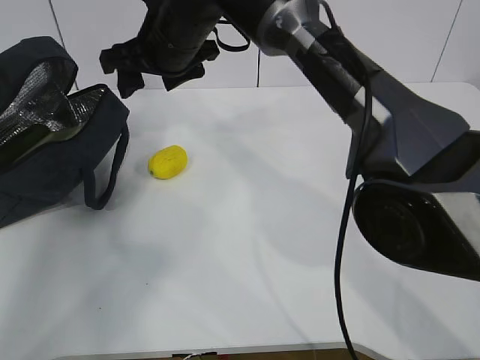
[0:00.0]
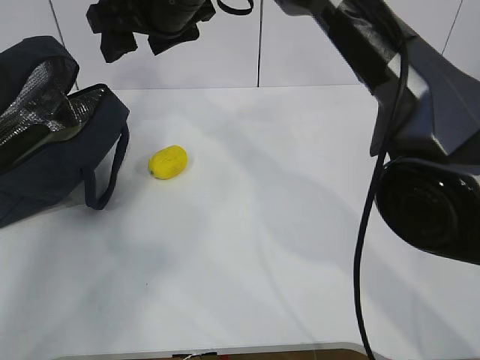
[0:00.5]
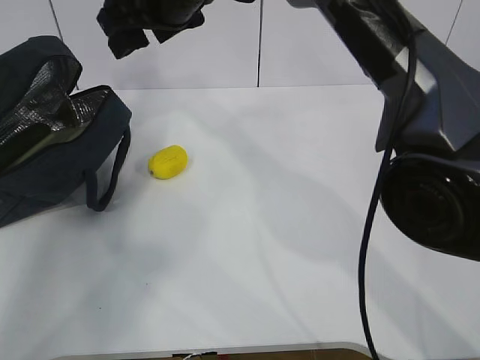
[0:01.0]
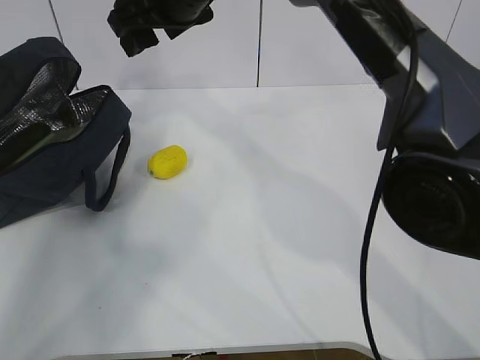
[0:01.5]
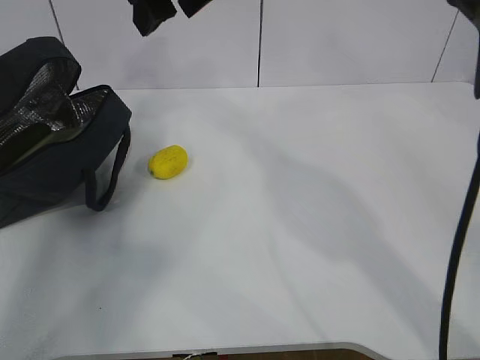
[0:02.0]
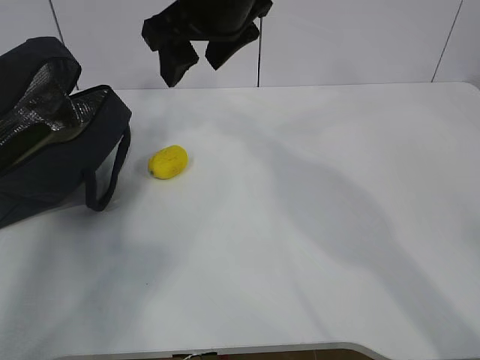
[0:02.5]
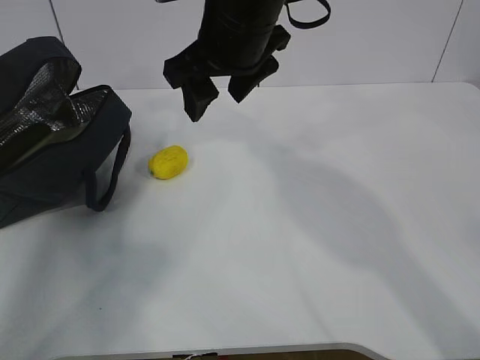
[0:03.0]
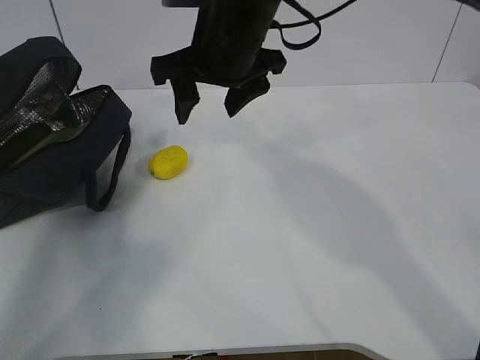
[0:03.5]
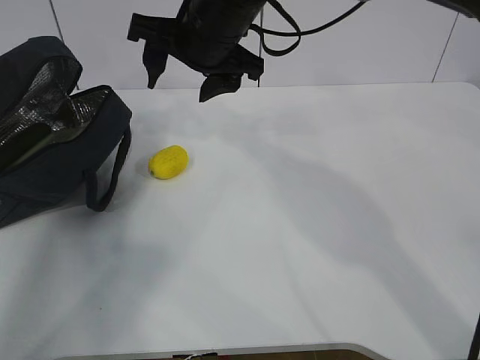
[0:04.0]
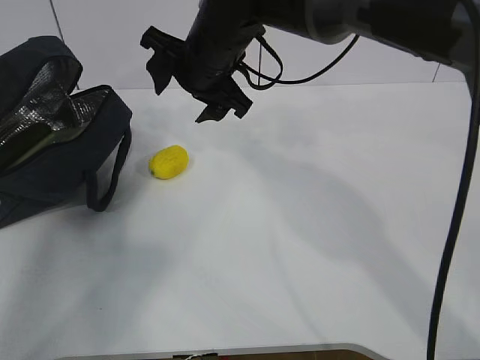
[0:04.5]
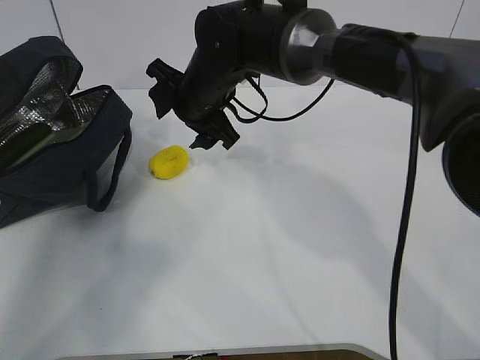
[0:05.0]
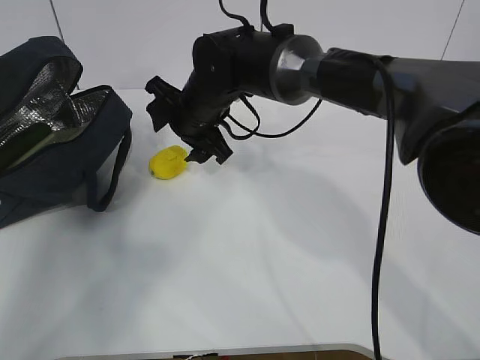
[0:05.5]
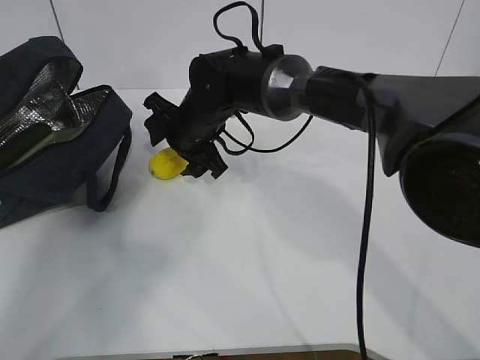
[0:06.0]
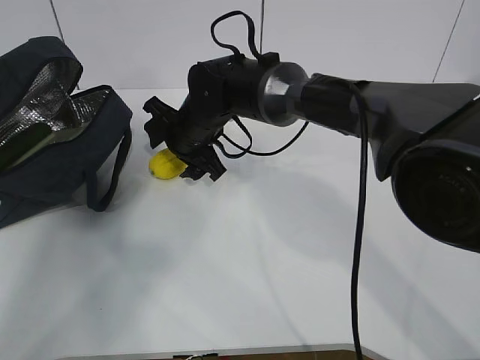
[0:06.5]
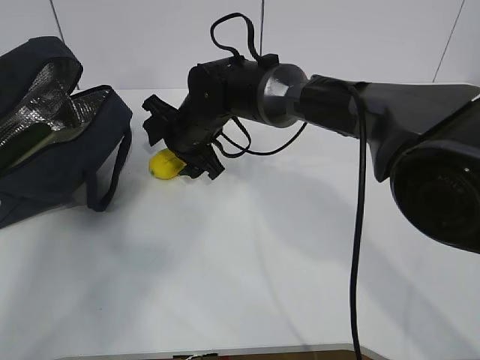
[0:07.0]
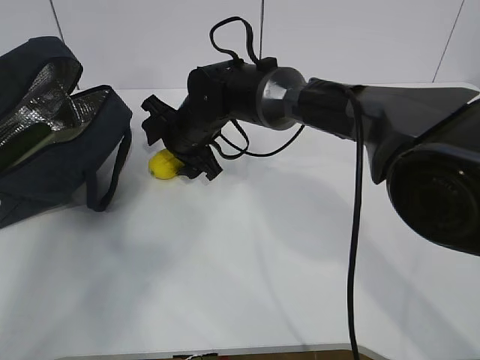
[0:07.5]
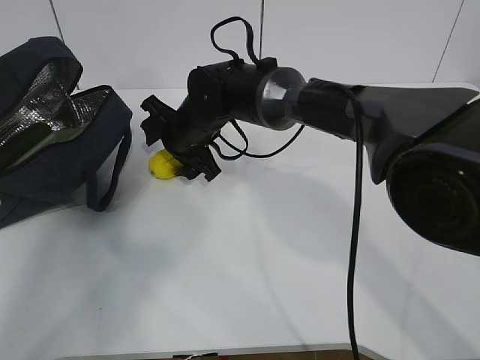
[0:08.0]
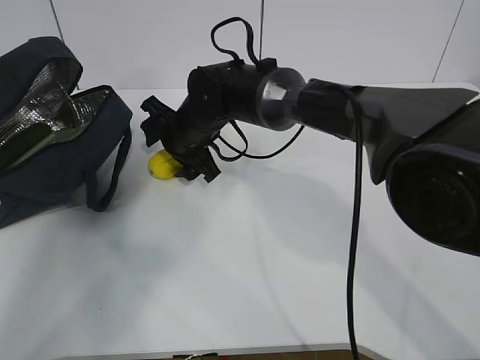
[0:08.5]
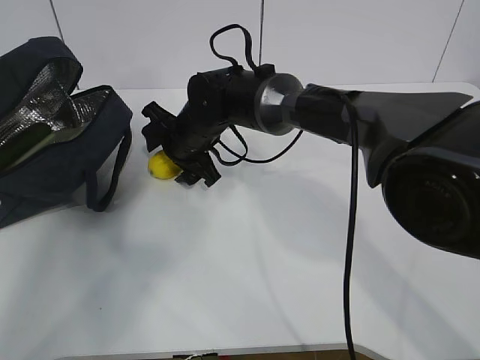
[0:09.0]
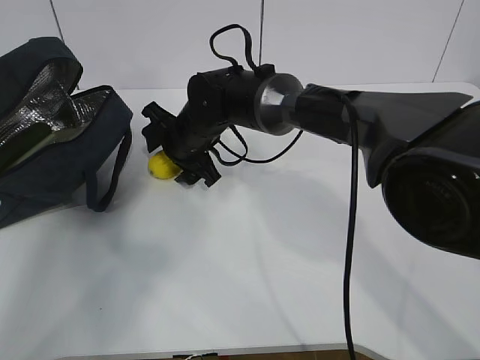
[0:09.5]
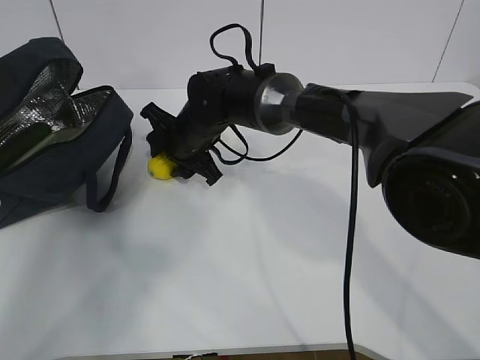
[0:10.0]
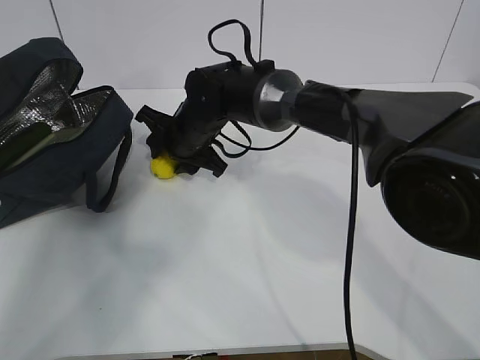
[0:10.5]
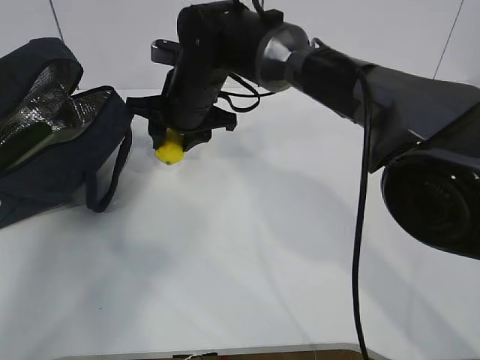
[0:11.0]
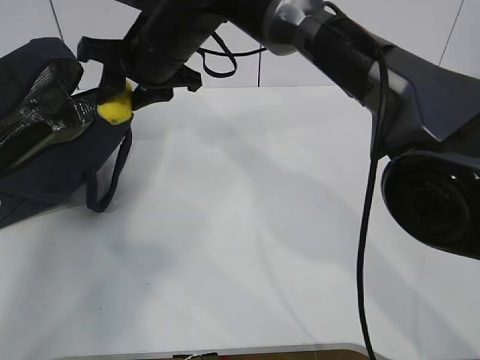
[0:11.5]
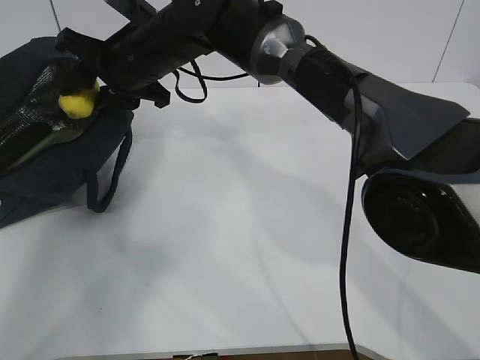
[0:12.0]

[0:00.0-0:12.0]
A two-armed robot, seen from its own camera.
Step, 0:00.0 to 0:03.5: Grab the lemon with your right hand.
Step, 0:07.0 to 0:08.0: Grab the lunch bag with your right hand.
Step, 0:08.5 to 0:11.5: Stand the lunch bag upright with your right hand.
0:00.0 to 0:02.0: The right gripper is displaced upward by roughly 10 cm.
0:02.0 to 0:04.0: The right gripper is displaced downward by approximately 5 cm.
0:04.0 to 0:06.0: The right gripper moves downward, some 15 cm.
0:06.0 to 0:08.0: The grippers make only small movements.
0:08.0 to 0:10.0: Both grippers stay about where they are.
0:10.0 to 0:12.0: The right gripper goes approximately 10 cm upward.

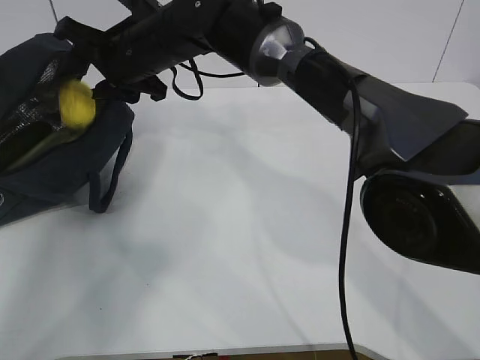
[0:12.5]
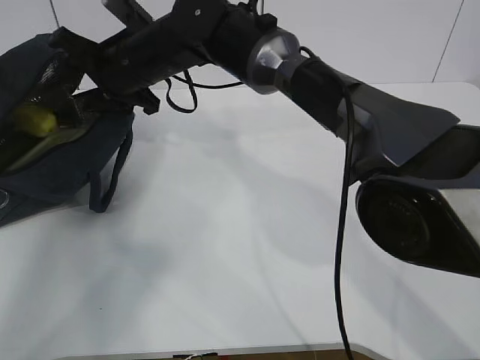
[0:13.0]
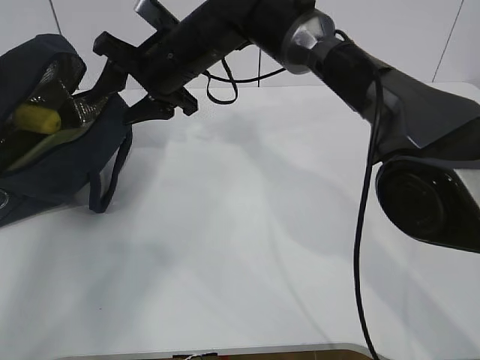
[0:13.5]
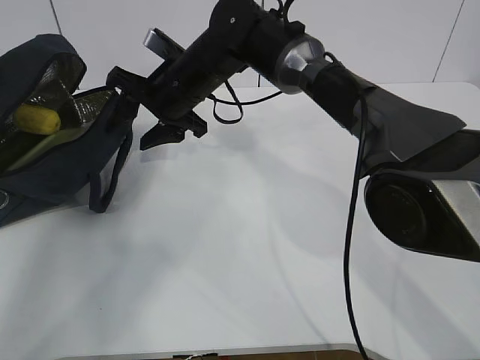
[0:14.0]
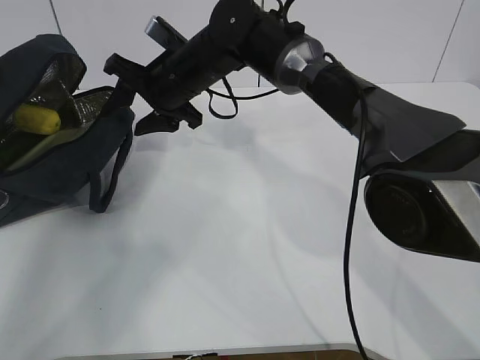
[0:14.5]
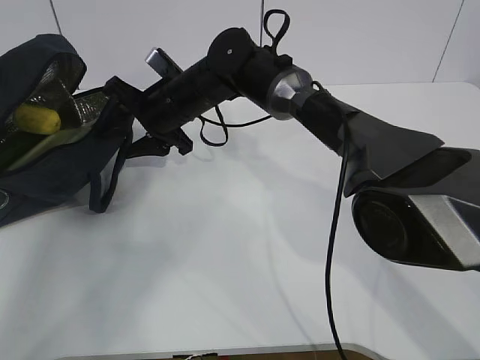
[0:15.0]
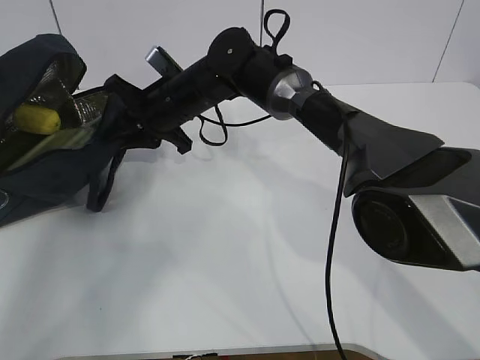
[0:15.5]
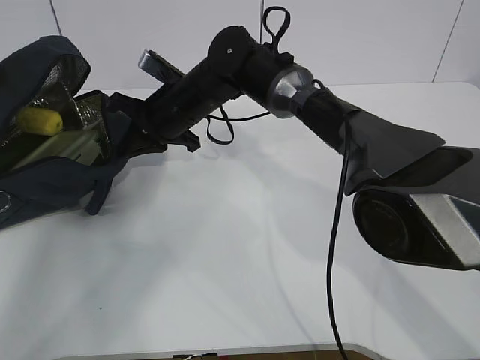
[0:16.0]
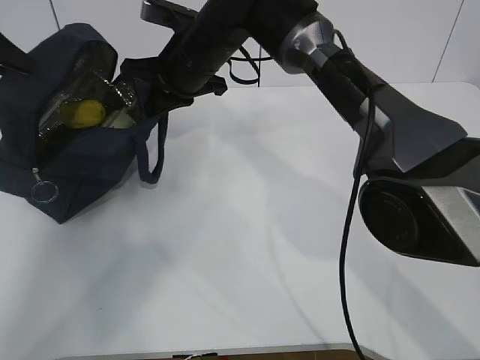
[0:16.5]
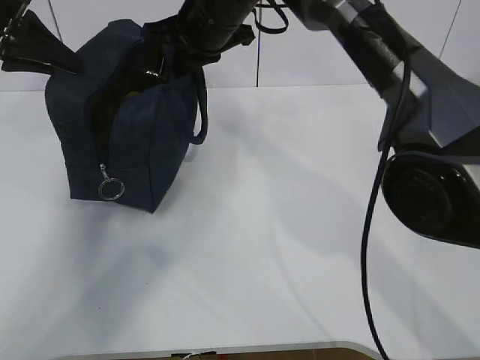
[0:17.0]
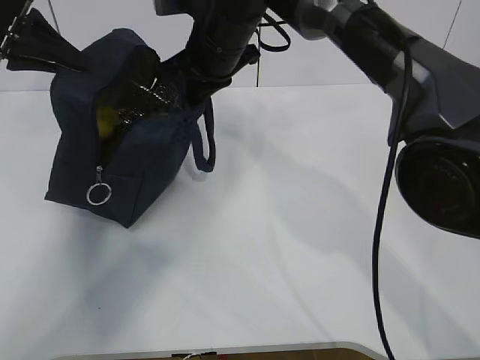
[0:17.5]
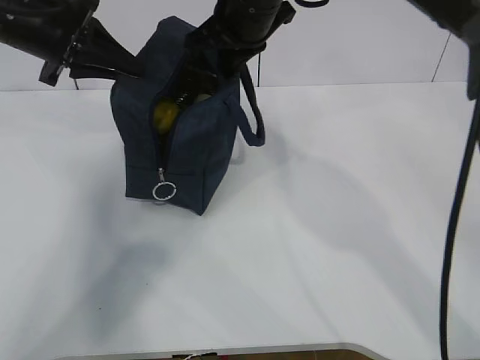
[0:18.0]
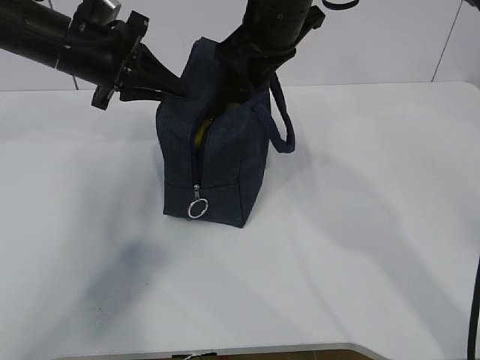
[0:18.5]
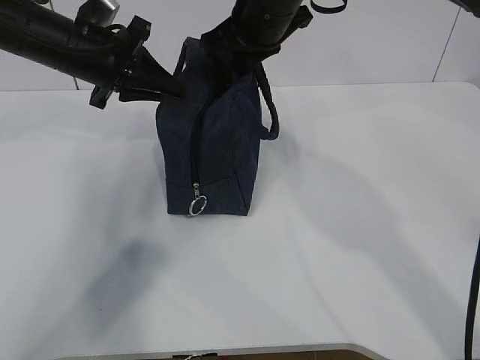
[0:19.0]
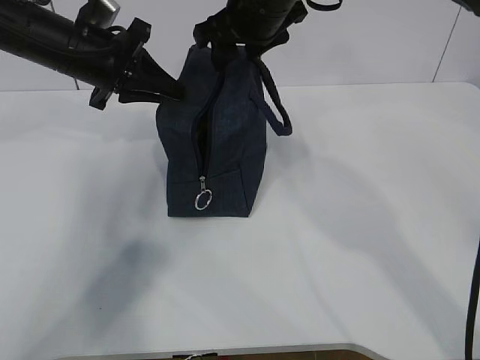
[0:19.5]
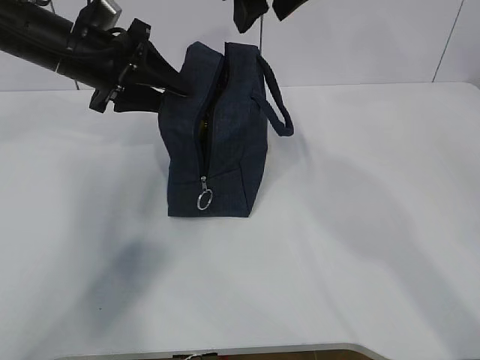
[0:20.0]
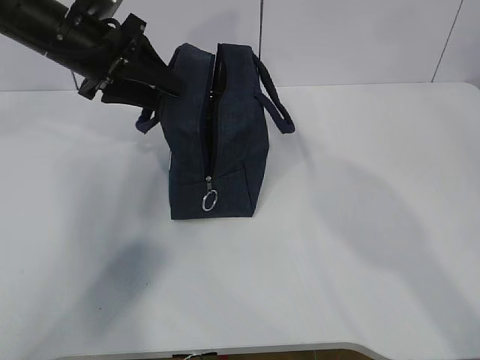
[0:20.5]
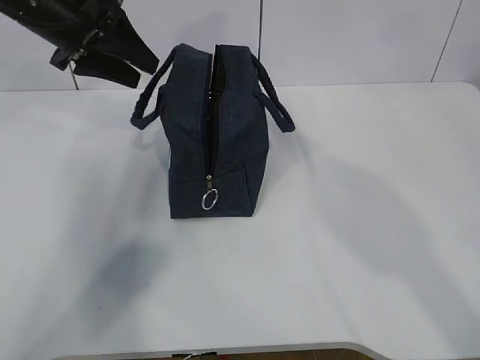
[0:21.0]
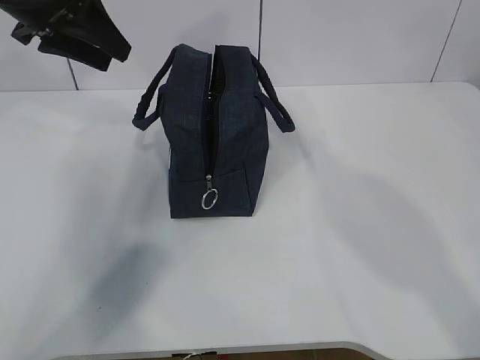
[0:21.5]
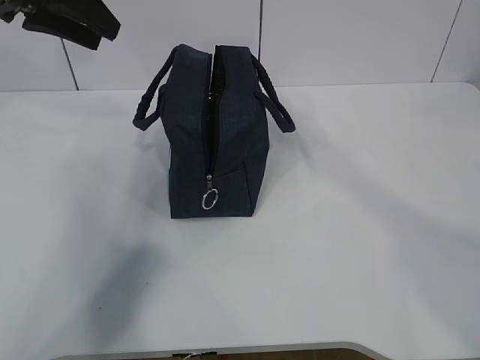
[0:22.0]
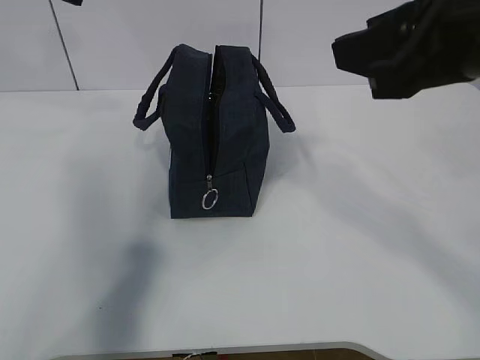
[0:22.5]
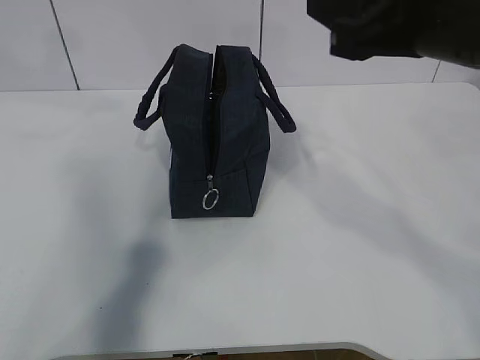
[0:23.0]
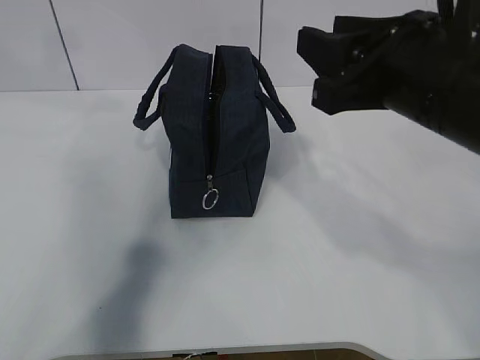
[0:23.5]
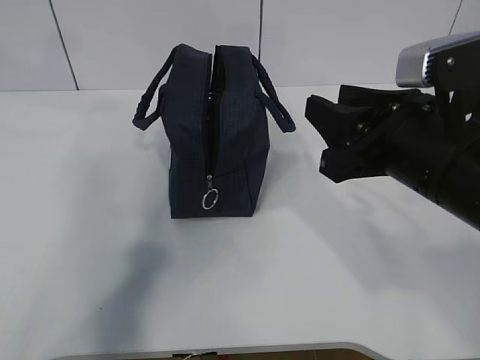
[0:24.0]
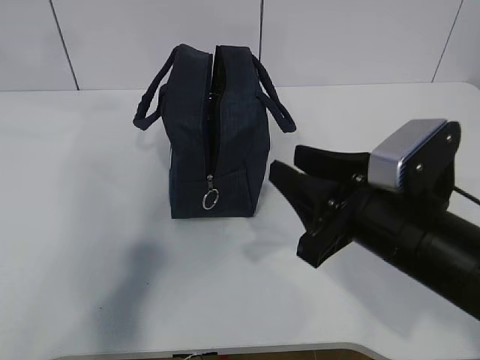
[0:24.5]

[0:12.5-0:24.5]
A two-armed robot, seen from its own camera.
0:12.5 to 0:14.5: The right gripper moves some 5 cm.
0:14.5 to 0:16.5: The right gripper closes.
0:16.5 to 0:18.5: The right gripper goes about 10 cm to the right and upward. Meanwhile the left gripper travels to the right by approximately 15 cm.
0:18.5 to 0:20.5: The right gripper shifts roughly 10 cm upward, and opens its fingers; the left gripper opens.
0:20.5 to 0:22.5: The right gripper goes some 20 cm backward and to the right. The left gripper goes roughly 15 cm upward and backward.
0:22.5 to 0:24.5: The right gripper travels downward by some 15 cm.

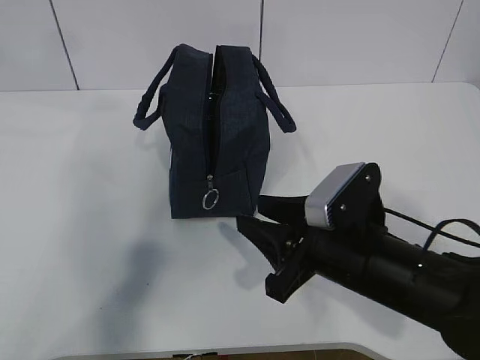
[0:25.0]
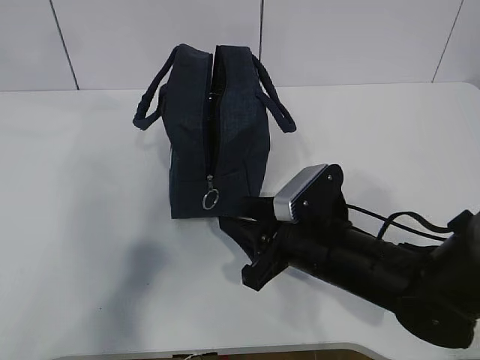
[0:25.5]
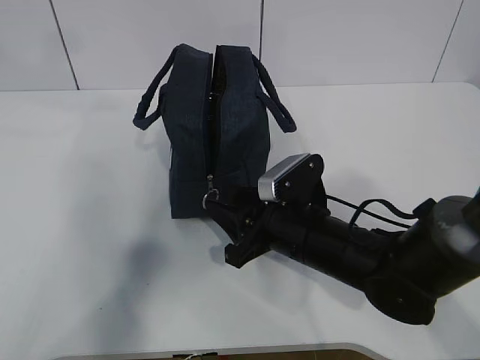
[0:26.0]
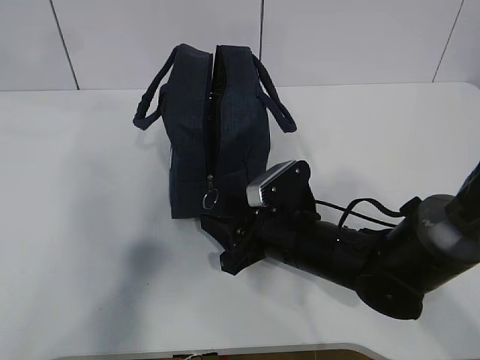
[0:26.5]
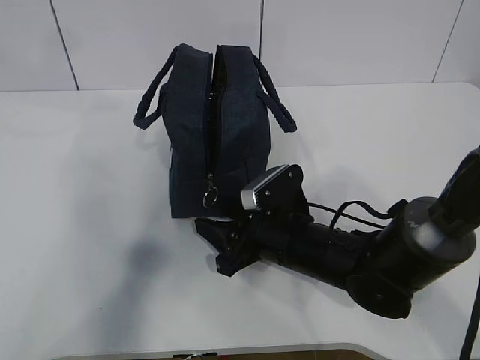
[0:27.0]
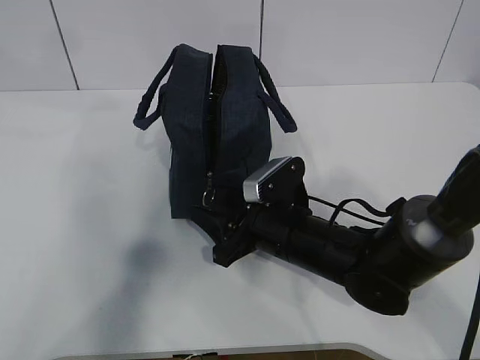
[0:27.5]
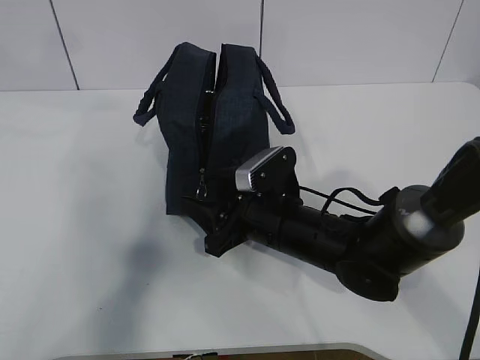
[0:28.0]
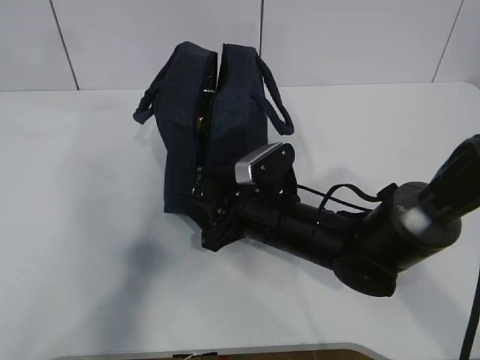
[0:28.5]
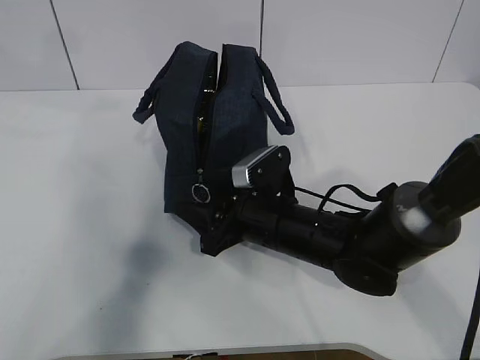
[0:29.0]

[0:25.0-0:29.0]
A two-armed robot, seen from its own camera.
0:25.0 to 0:27.0: The right gripper moves forward and downward, about 10 cm.
0:27.0 to 0:29.0: The grippers make only small movements.
